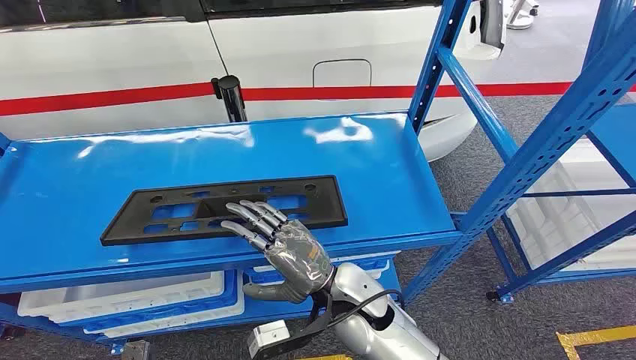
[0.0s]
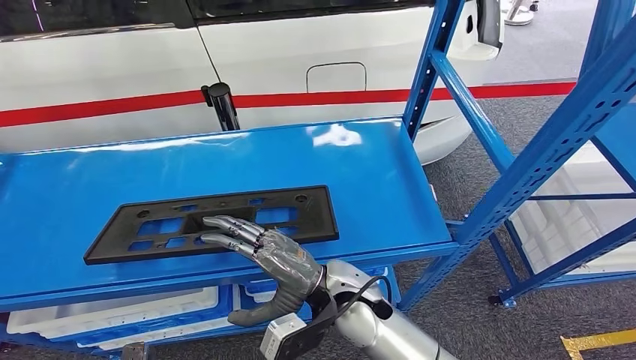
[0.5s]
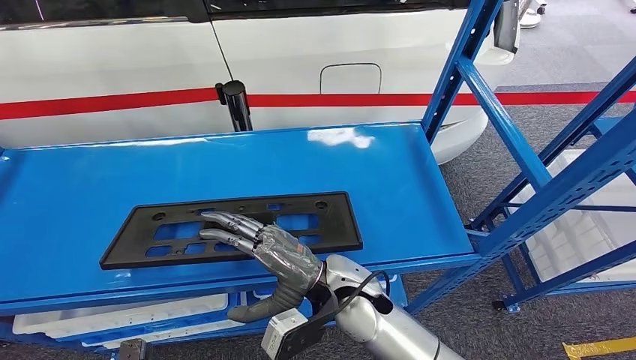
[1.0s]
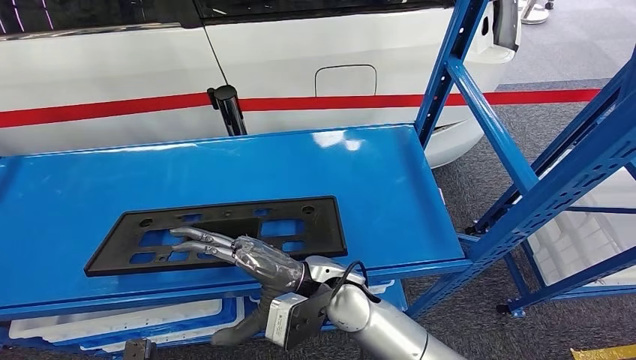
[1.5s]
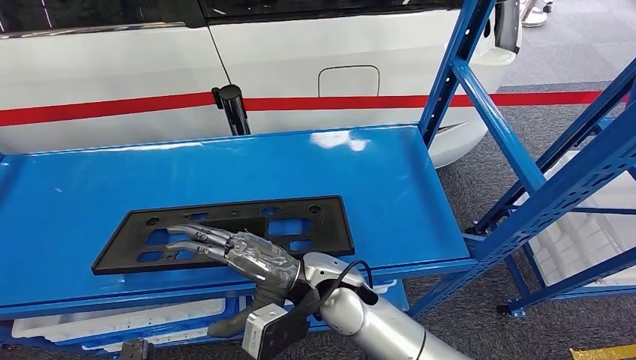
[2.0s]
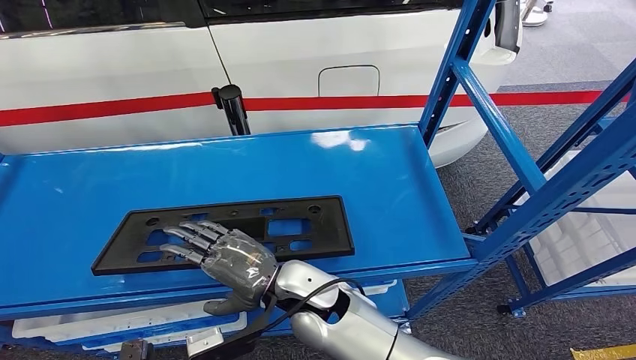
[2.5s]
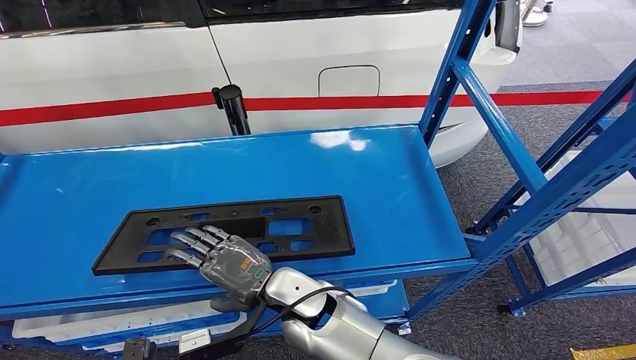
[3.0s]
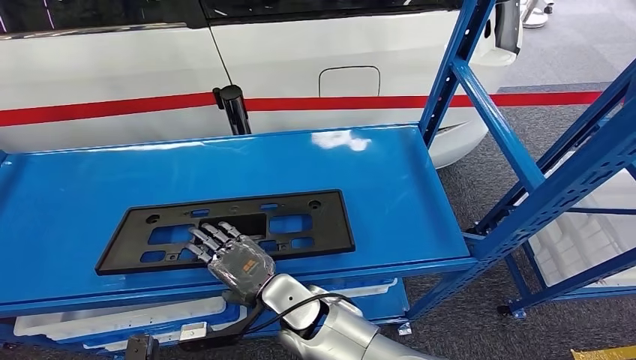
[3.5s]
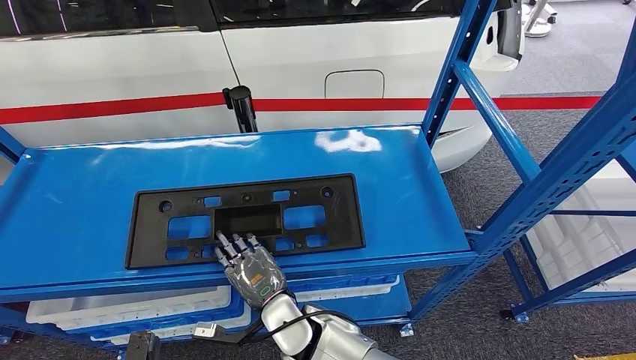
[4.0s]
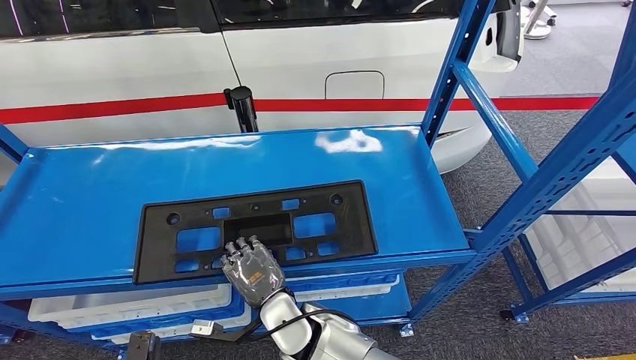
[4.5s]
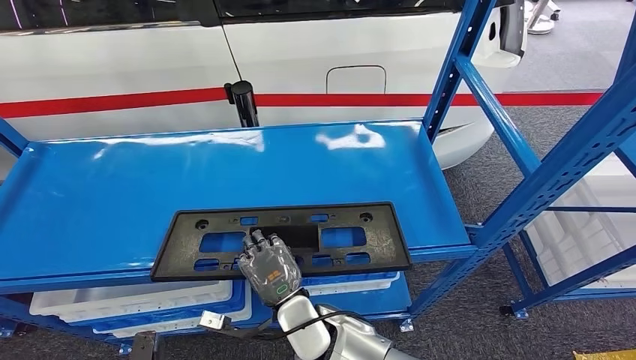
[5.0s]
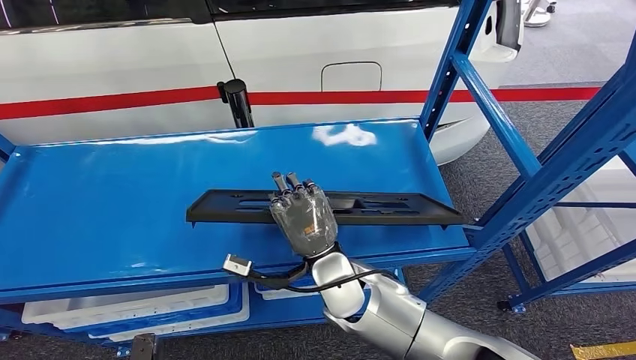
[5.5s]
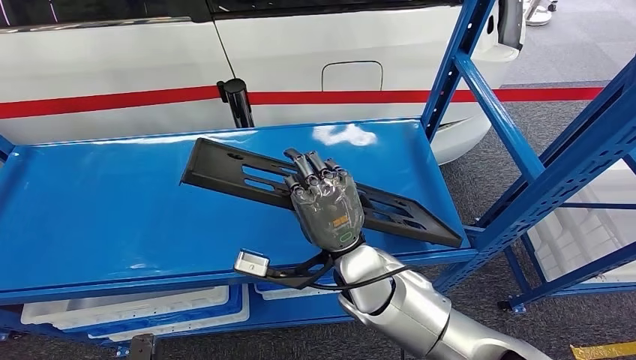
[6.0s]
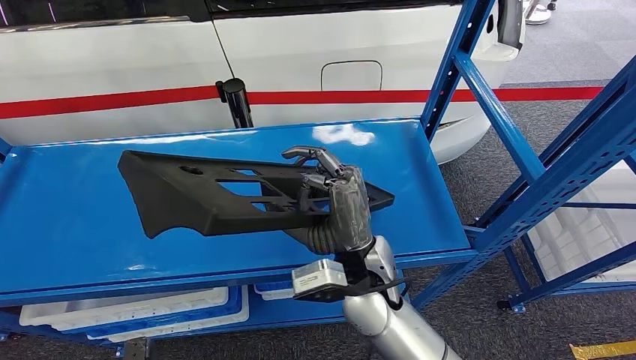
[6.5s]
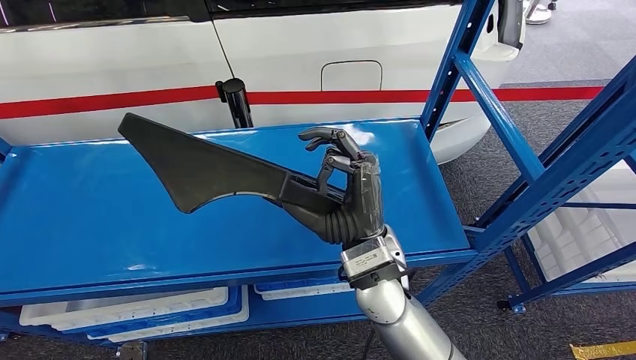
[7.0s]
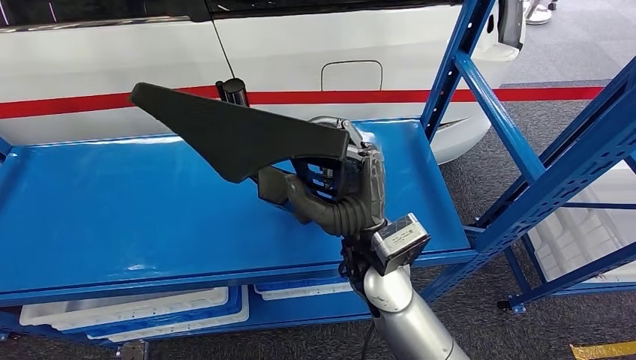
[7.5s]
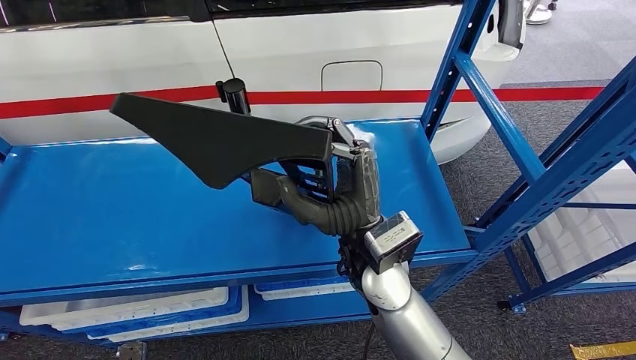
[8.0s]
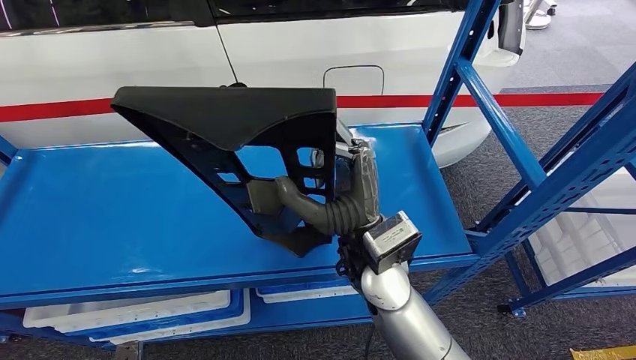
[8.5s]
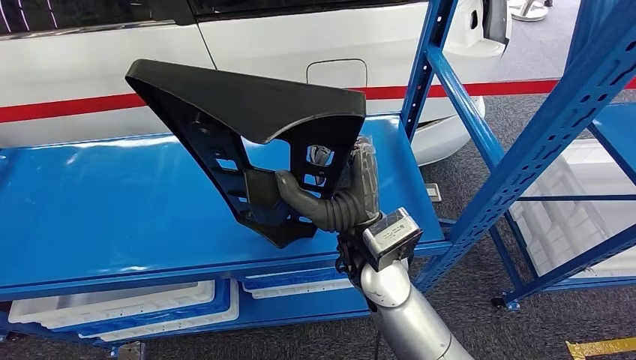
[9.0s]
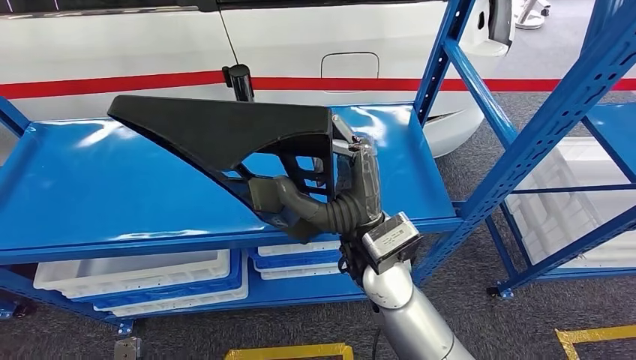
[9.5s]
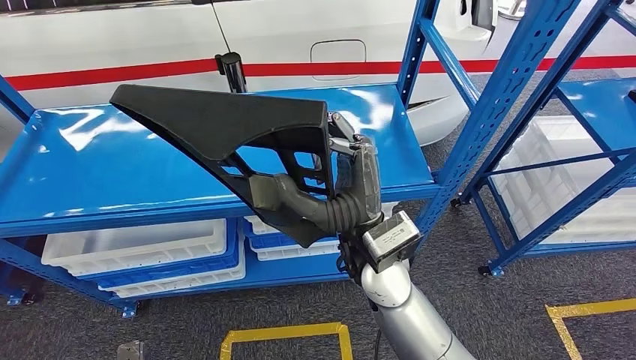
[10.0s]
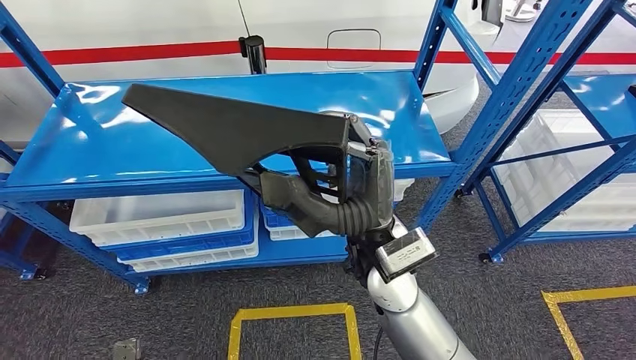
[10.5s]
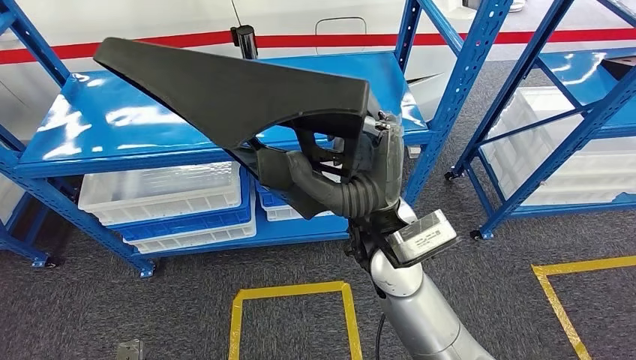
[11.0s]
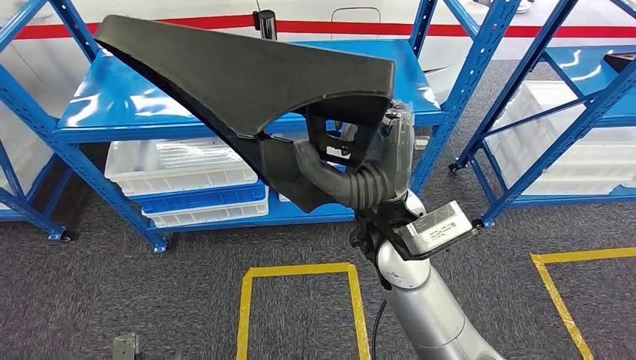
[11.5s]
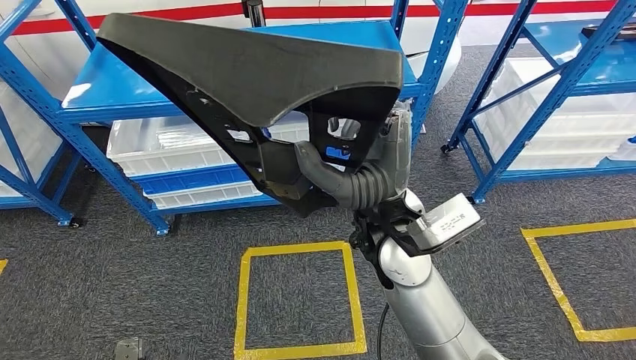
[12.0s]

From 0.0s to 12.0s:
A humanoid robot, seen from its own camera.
Step, from 0.0s to 10.0s: Pick up the large material from the shelf.
From 6.0s to 8.0s: The right hand is displaced upward by roughly 5 cm.

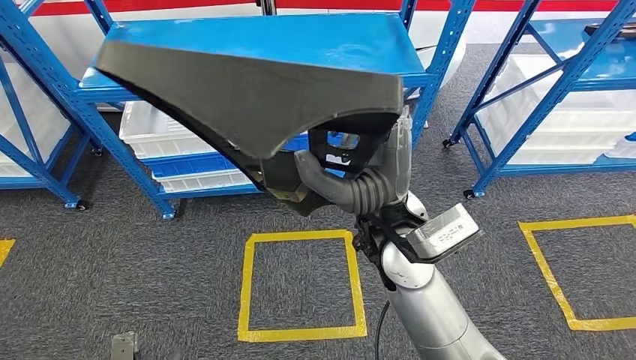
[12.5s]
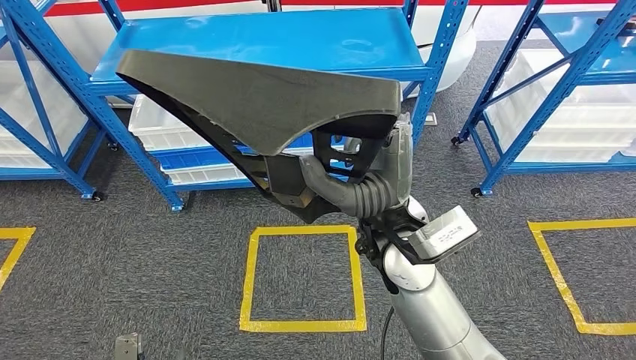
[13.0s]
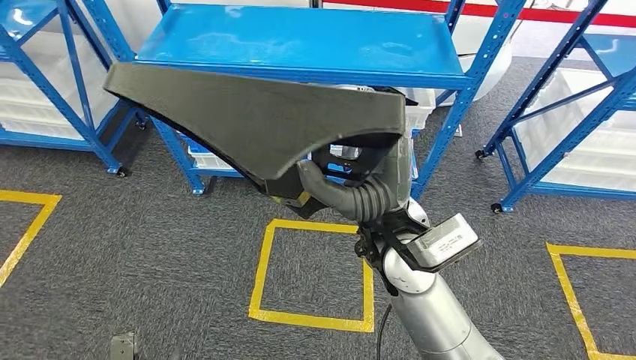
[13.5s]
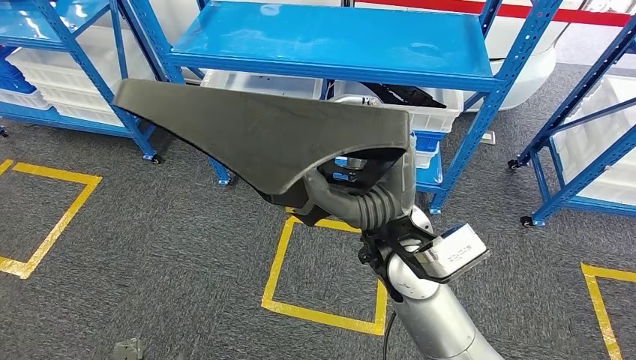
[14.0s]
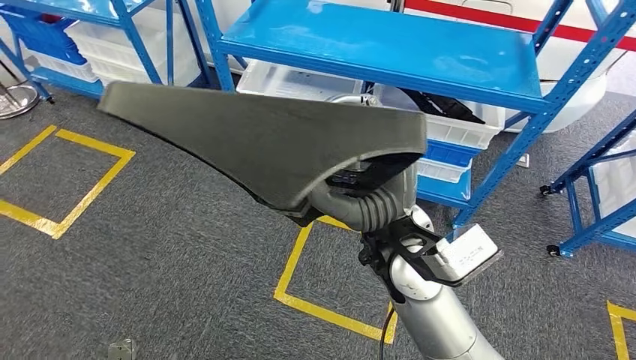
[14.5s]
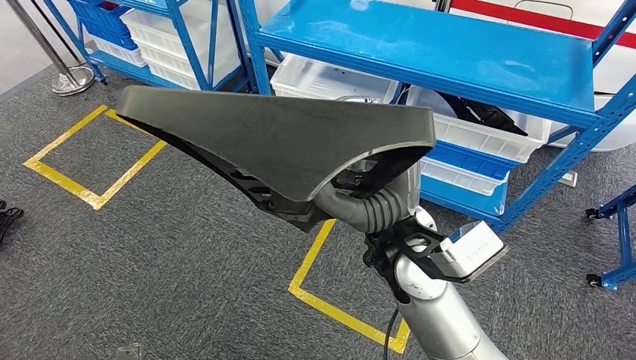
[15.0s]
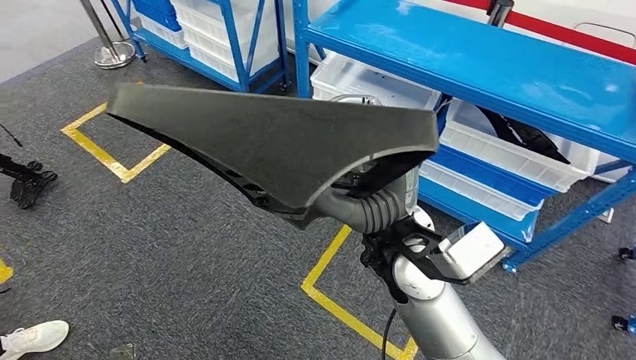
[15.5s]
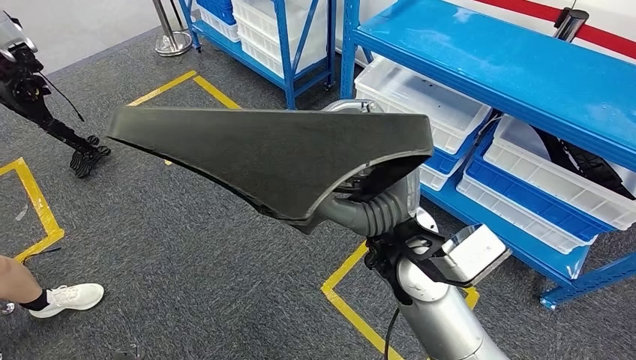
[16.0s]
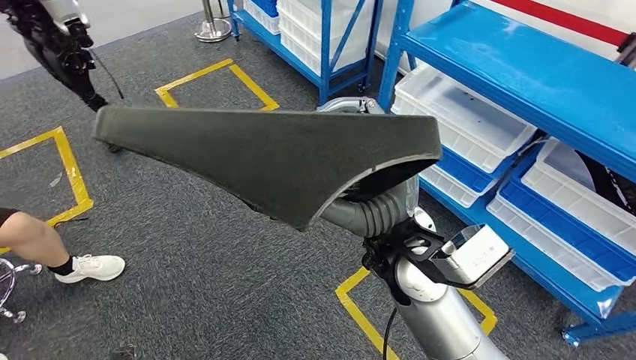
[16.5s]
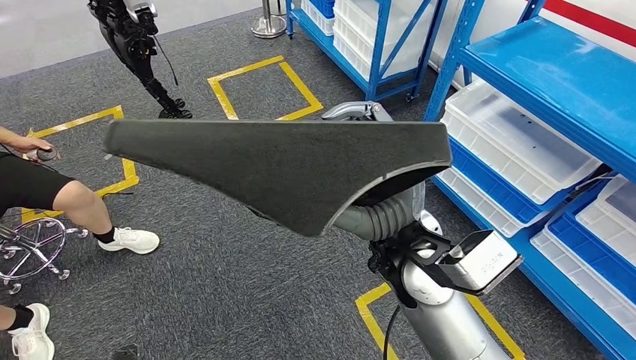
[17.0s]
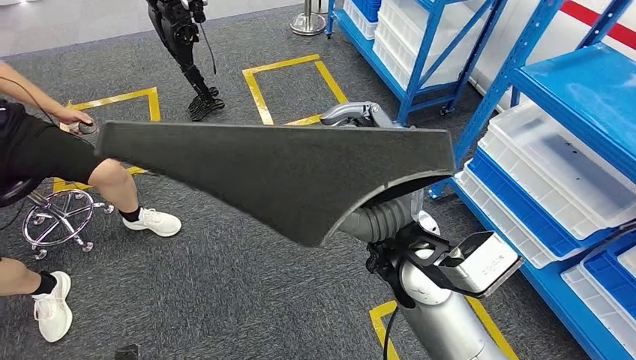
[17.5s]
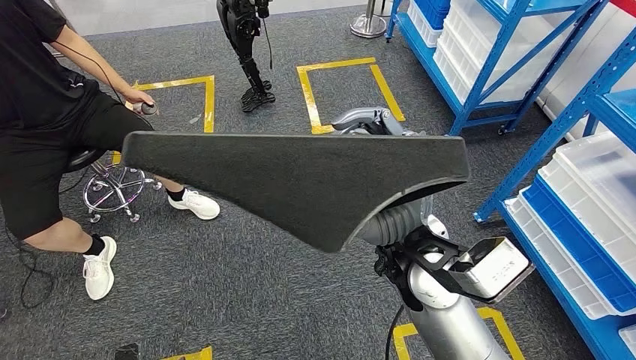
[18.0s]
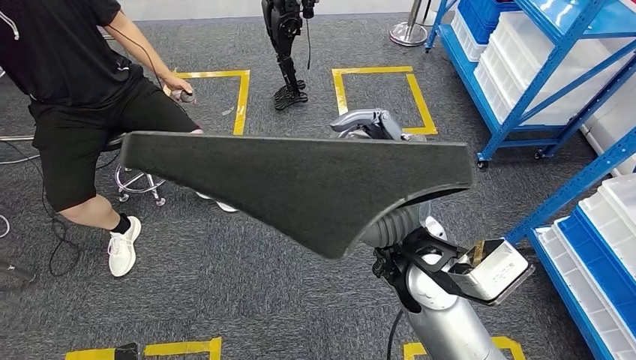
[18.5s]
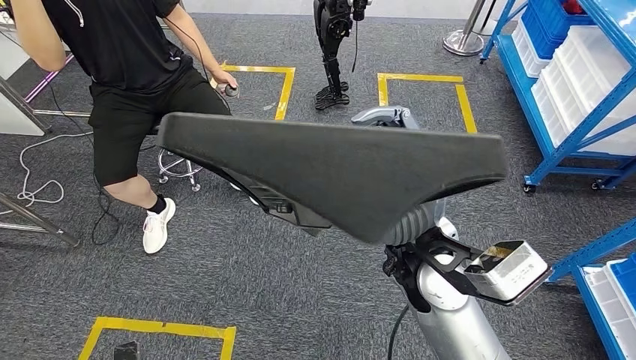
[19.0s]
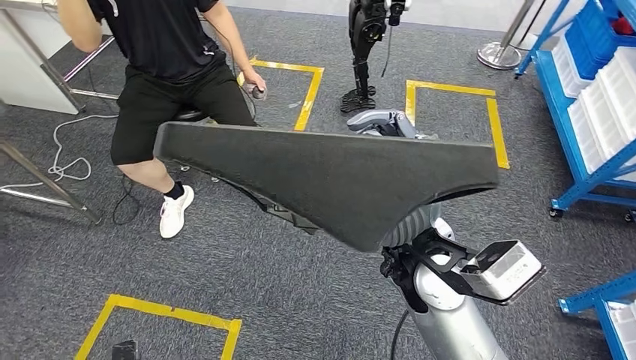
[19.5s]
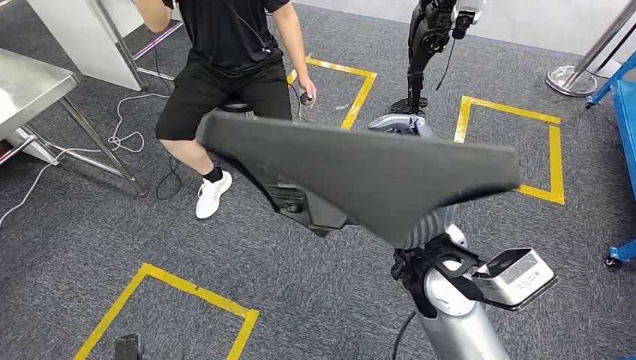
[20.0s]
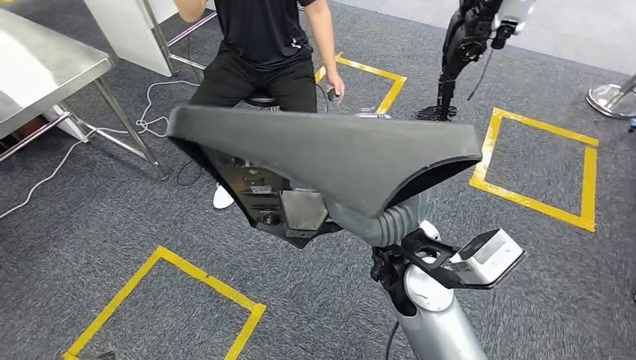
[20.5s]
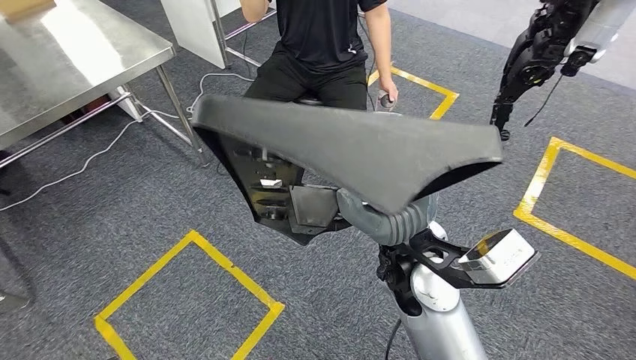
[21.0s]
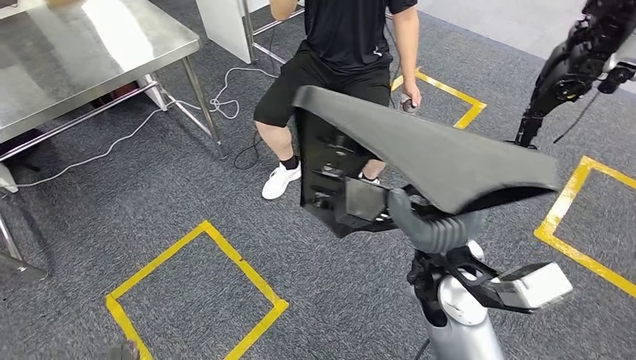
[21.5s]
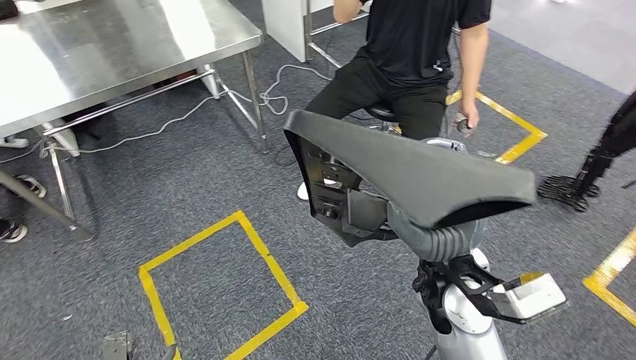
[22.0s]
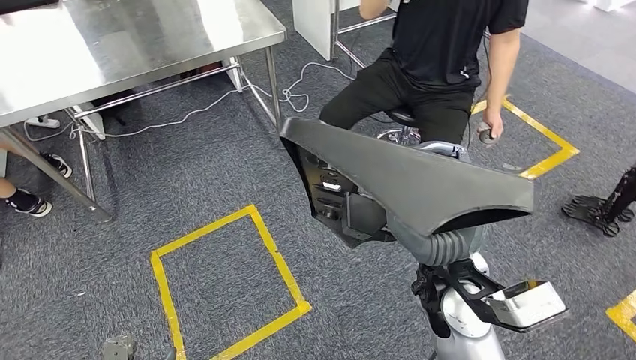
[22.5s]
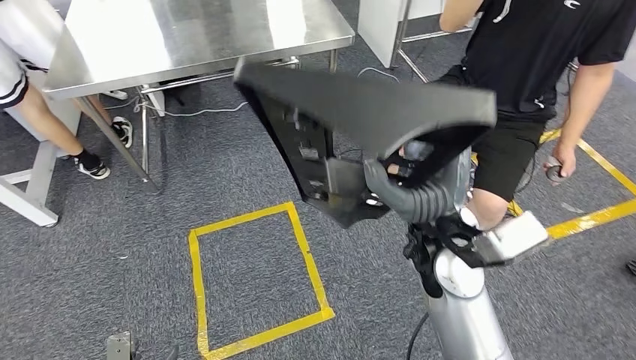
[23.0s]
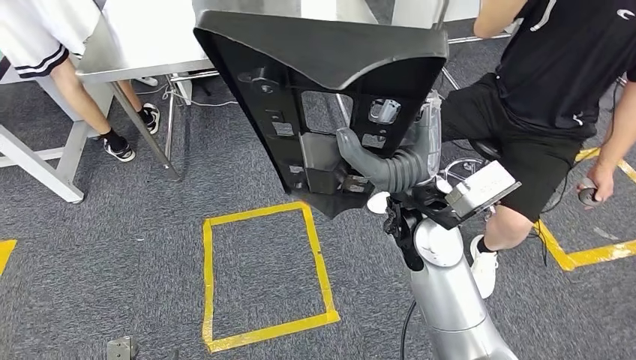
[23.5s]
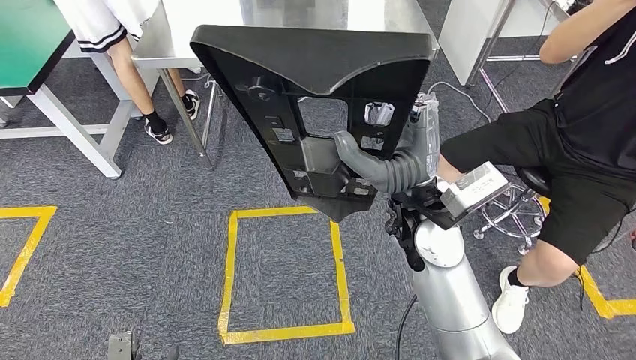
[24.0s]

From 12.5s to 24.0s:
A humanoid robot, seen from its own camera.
Step, from 12.5s to 24.0s: Move the large material to the workbench.
